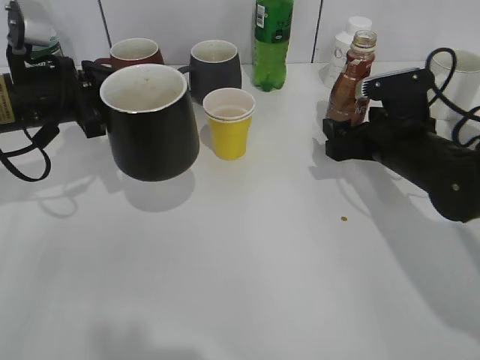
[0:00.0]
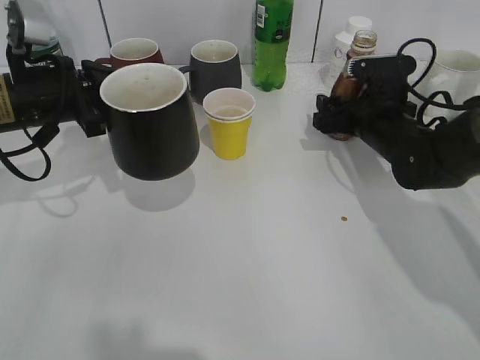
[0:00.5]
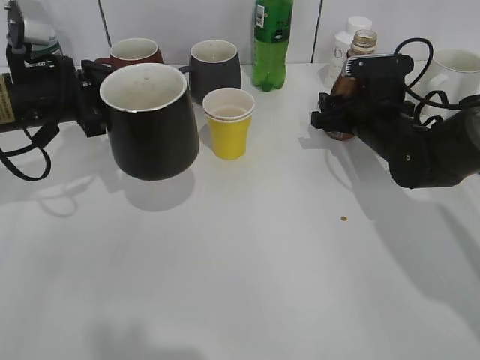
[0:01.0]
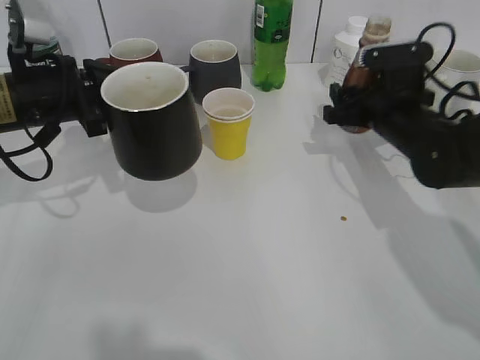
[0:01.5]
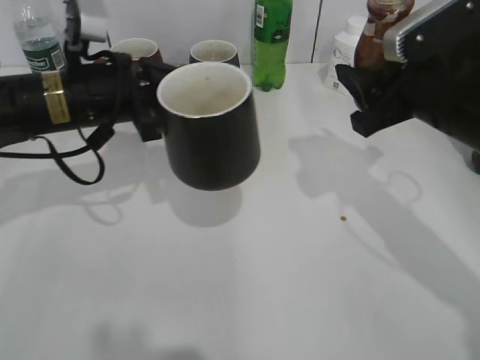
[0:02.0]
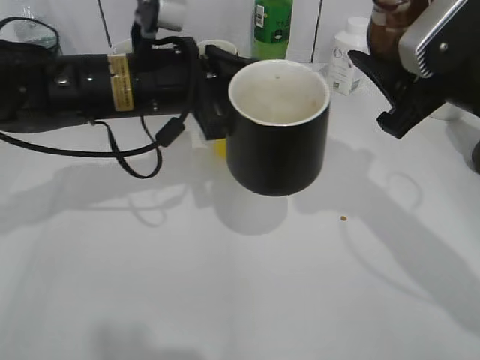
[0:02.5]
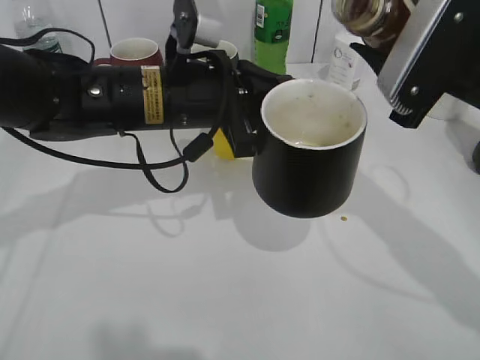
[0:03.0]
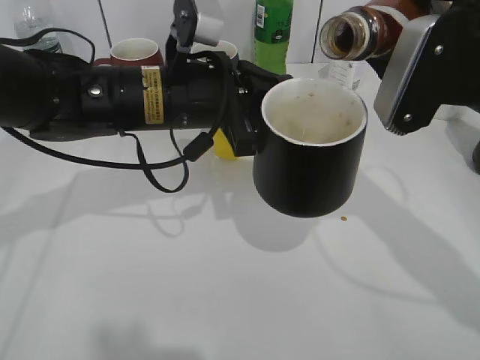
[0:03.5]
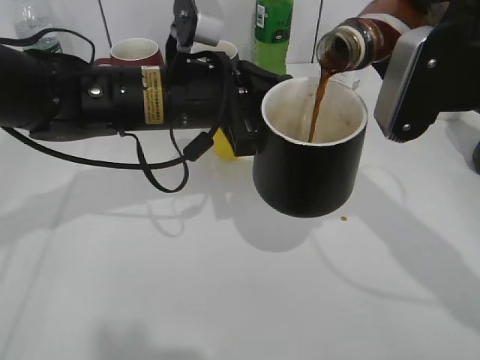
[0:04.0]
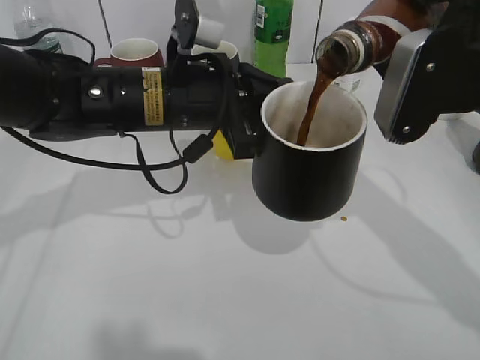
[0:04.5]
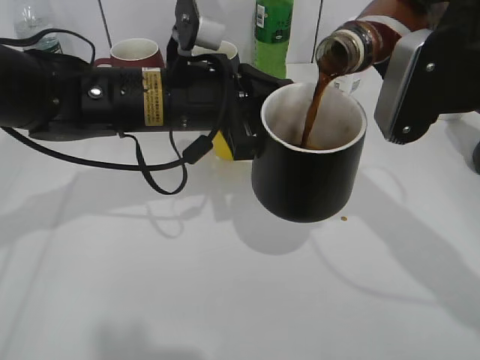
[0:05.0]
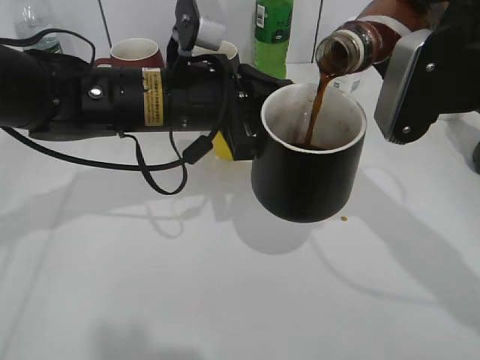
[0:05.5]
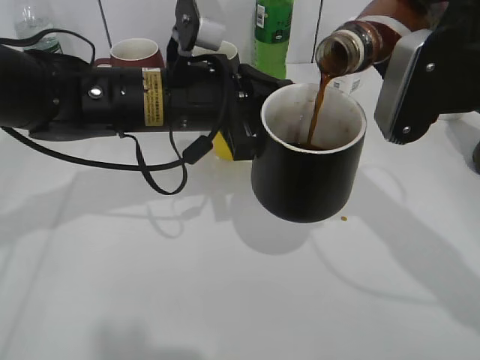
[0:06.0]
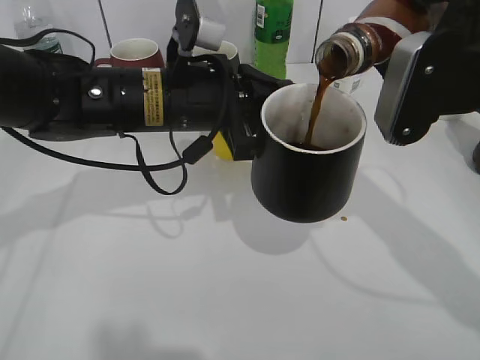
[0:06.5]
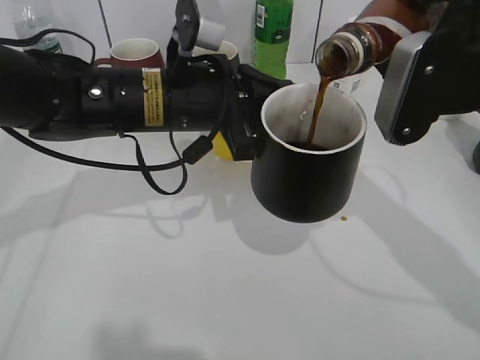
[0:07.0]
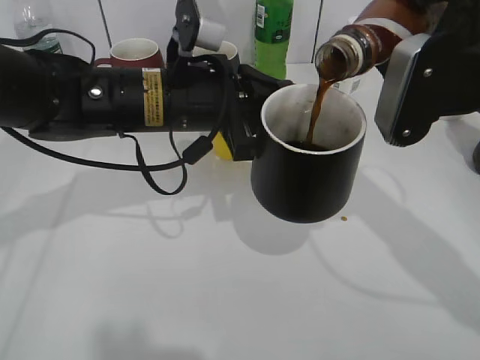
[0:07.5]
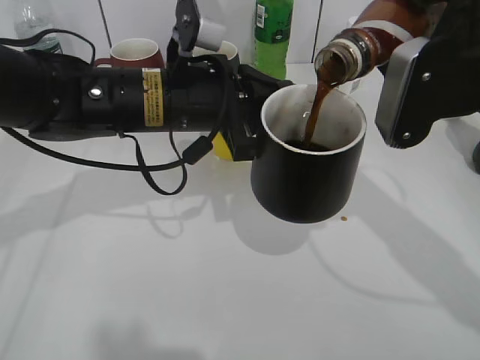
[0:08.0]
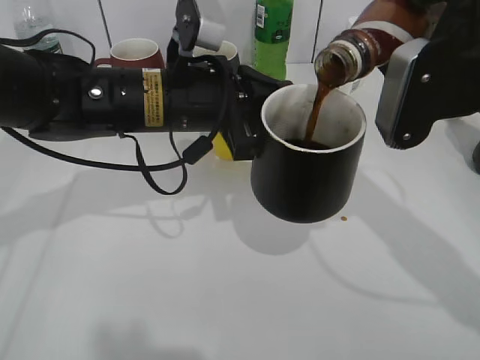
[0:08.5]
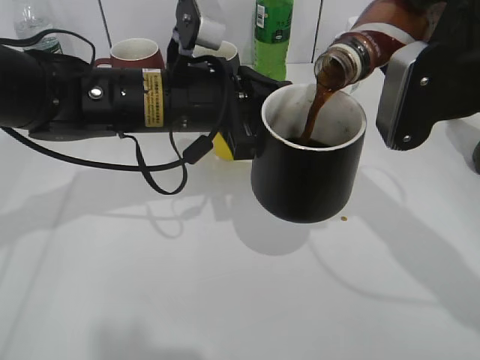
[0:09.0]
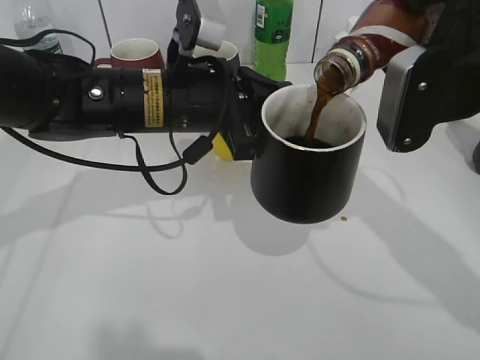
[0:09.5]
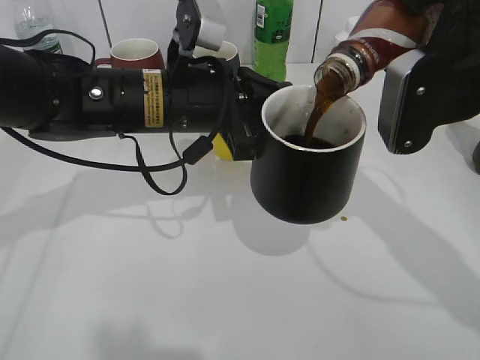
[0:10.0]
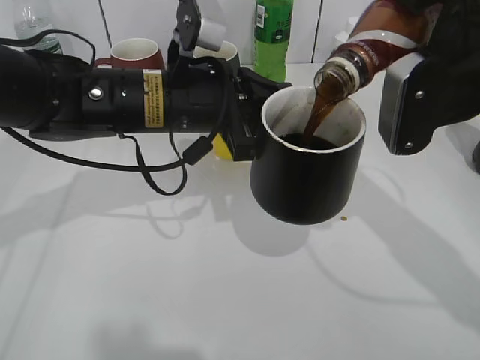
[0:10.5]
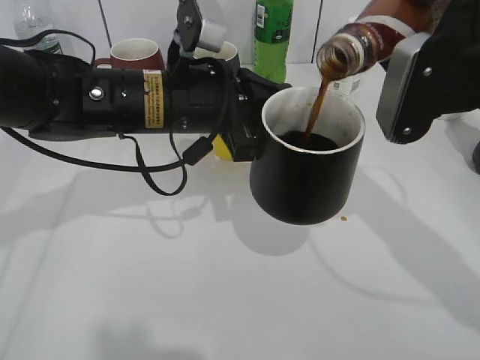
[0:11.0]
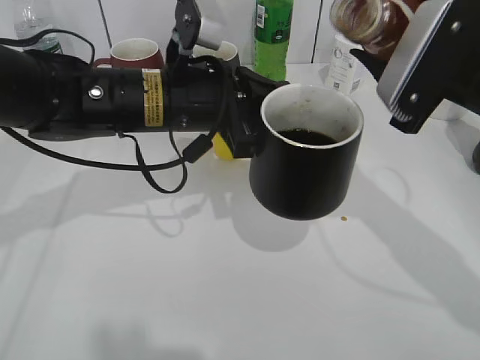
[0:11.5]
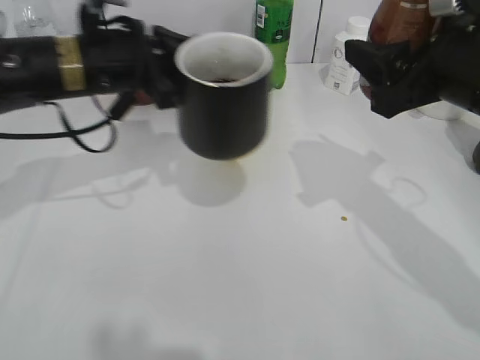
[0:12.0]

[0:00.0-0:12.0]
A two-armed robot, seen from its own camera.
Step, 0:01.5 to 0:11.0: Pour the coffee from bottle to cup with right gripper.
0:00.0 to 0:02.0: The right gripper shifts roughly 10 cm upward and backward, and closes up. Meanwhile the left gripper shifts some 5 cm to the right.
0:02.0 to 0:04.0: The right gripper shifts approximately 5 cm upward. Meanwhile the left gripper moves to the right, about 10 cm.
0:04.0 to 0:06.0: Both grippers stay about where they are.
0:06.0 to 0:08.0: Both grippers stay about where they are.
0:08.0 to 0:10.0: There are only small adjustments of the grippers.
0:10.0 to 0:12.0: The left gripper travels to the left by some 10 cm.

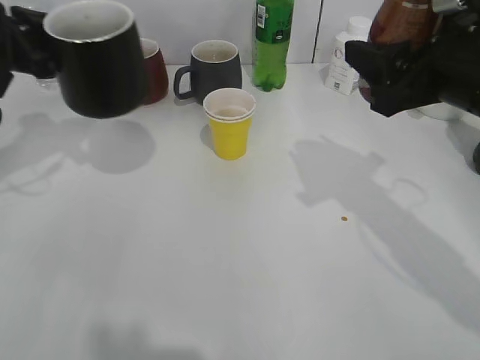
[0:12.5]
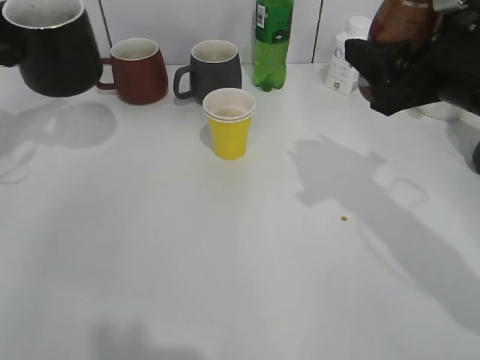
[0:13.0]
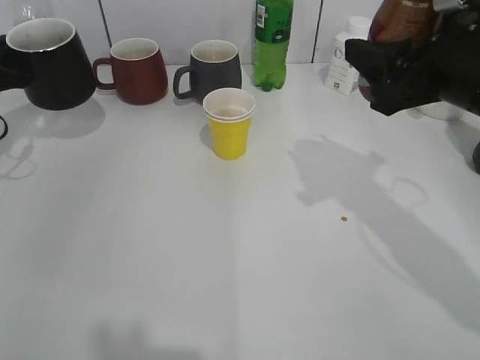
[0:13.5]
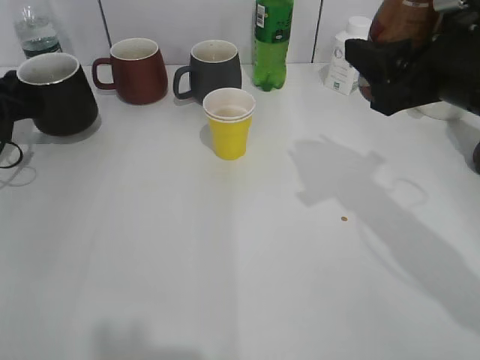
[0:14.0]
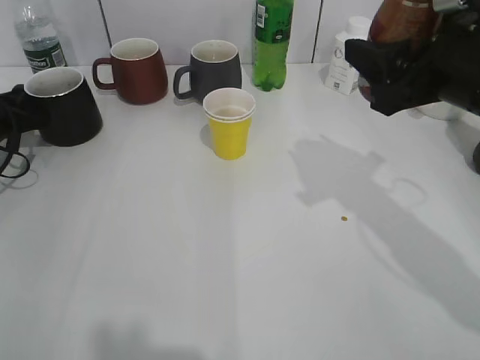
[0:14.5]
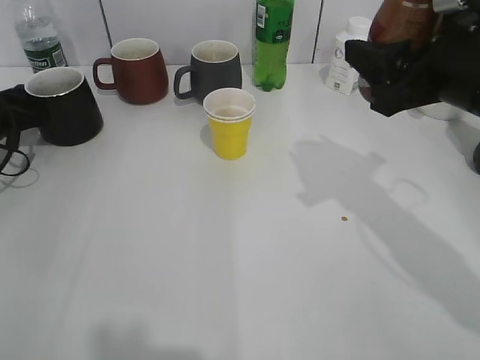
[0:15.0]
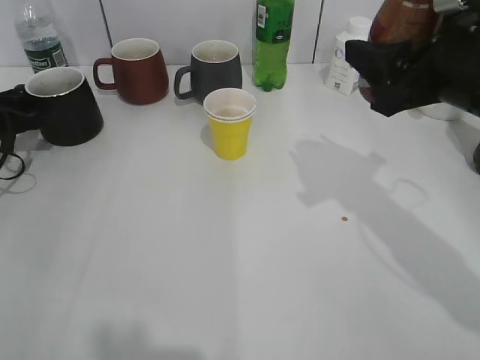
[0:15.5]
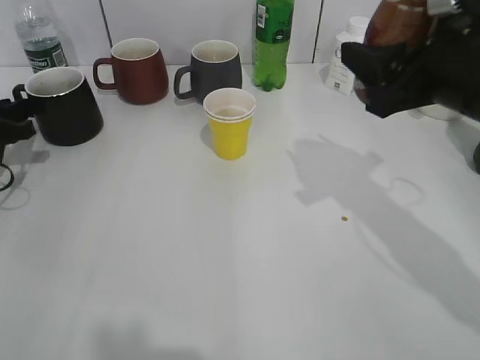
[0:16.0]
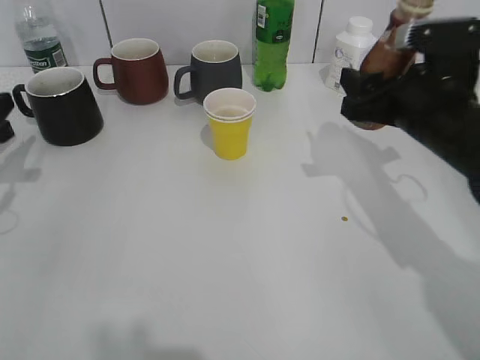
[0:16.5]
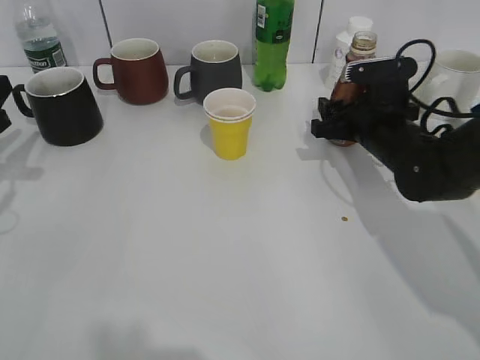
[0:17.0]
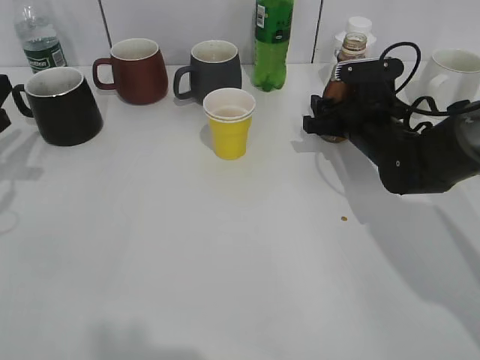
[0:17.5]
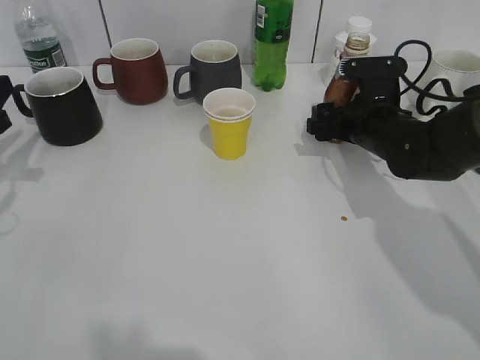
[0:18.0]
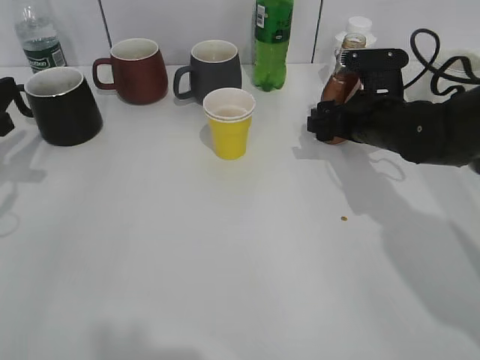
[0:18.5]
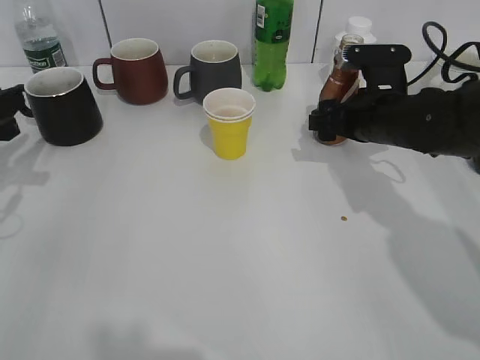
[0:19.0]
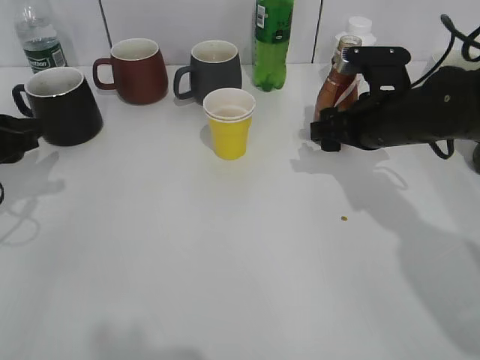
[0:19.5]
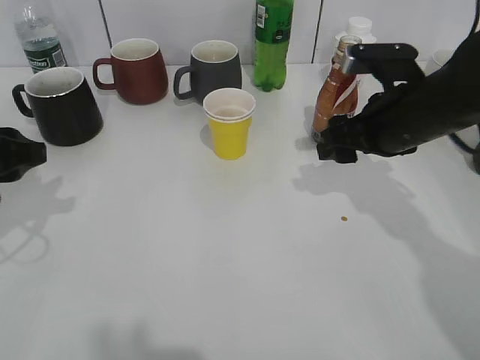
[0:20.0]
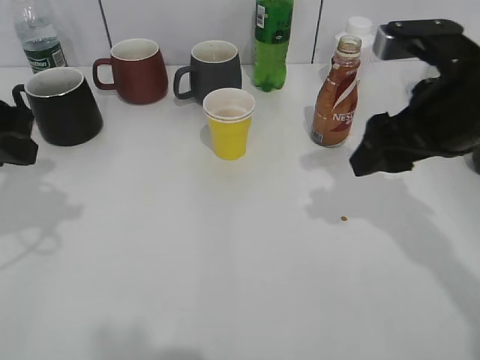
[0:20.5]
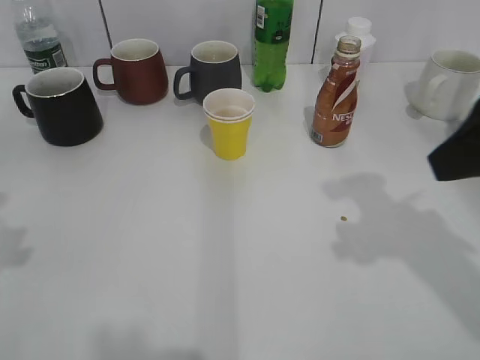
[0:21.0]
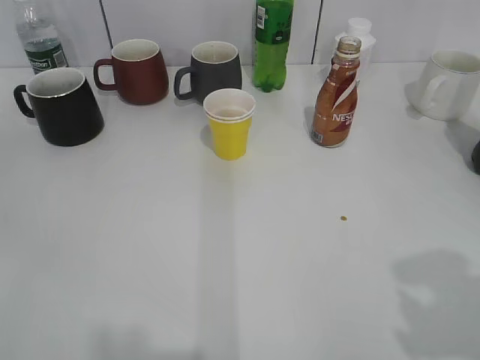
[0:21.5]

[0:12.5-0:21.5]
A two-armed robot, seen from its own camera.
Step, 0:12.5 to 0:16.0: Place the black cup on the table with left gripper.
Step, 0:16.5 to 0:19.0: Place the coffee bottle on the table with right gripper.
0:12.5 to 0:14.5: The left gripper is displaced downward and to the left by approximately 15 cm.
0:14.5 to 0:17.0: The left gripper heads backward and upward, covering about 10 cm, and opens up, while the right gripper is displaced downward and forward by roughly 20 cm.
0:17.0 to 0:19.5: The right gripper opens up.
0:19.5 to 0:21.5: The grippers both shift backward and upward by some 30 cm.

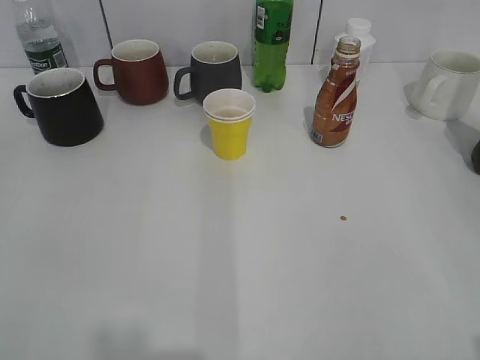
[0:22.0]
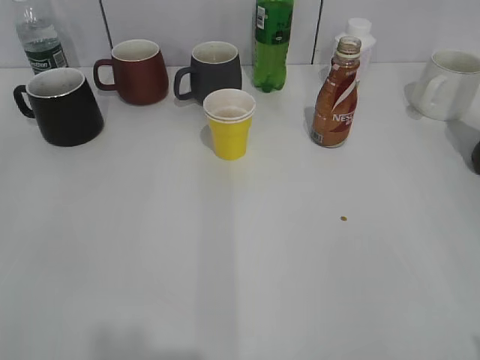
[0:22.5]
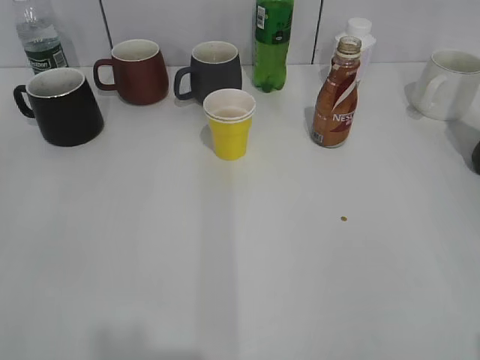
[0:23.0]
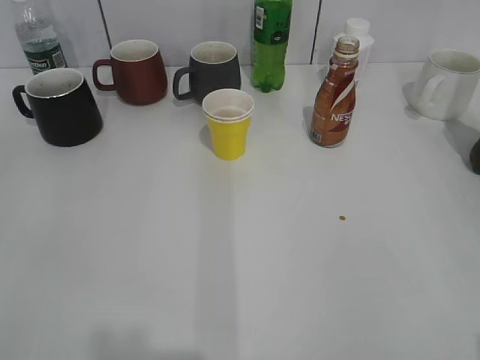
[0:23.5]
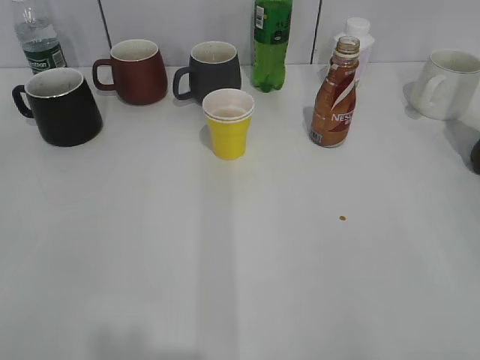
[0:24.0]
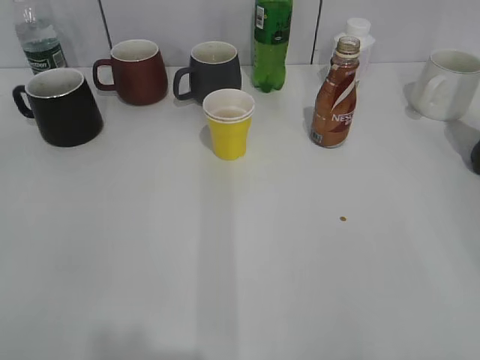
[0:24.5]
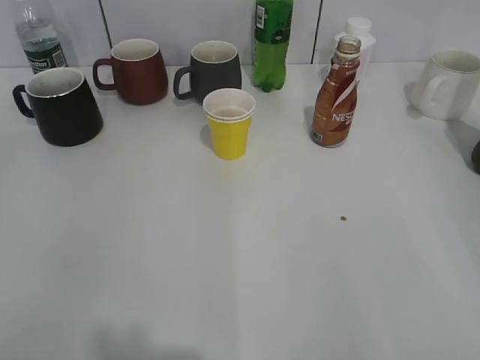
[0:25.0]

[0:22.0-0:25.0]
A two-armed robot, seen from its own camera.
0:22.0 to 0:23.5: The right gripper closes up.
